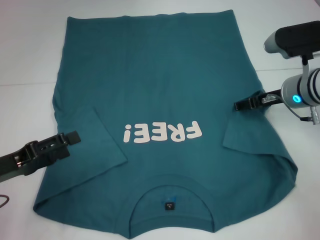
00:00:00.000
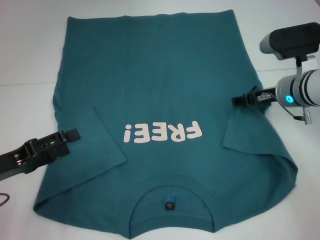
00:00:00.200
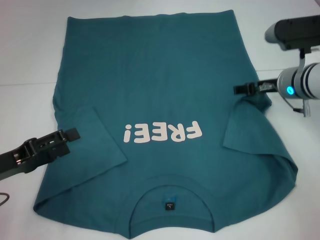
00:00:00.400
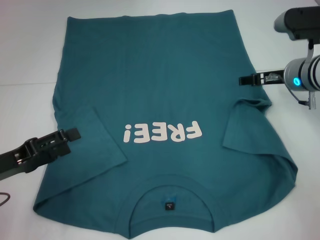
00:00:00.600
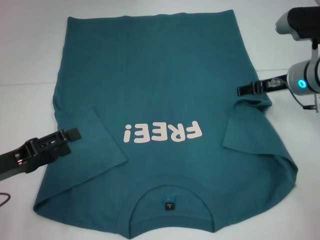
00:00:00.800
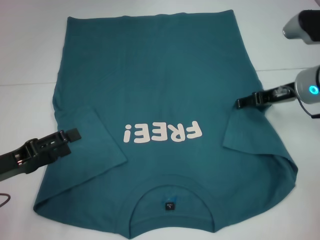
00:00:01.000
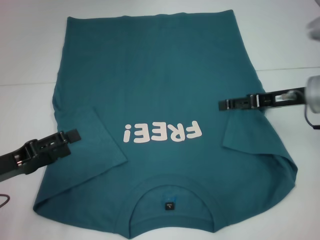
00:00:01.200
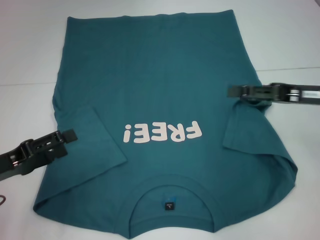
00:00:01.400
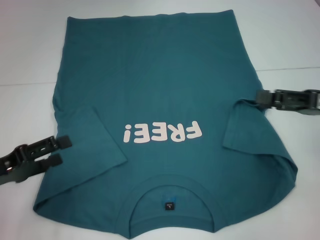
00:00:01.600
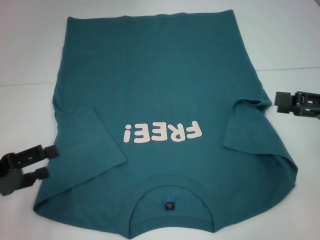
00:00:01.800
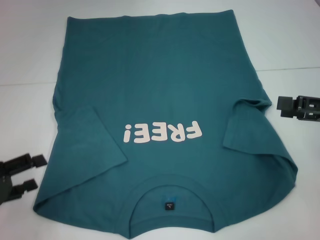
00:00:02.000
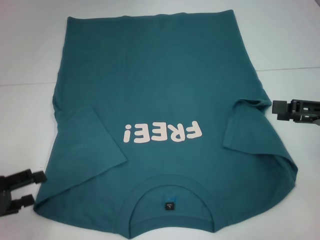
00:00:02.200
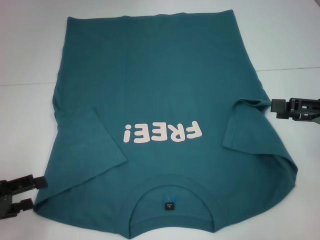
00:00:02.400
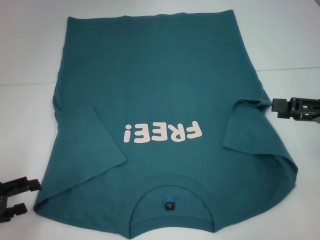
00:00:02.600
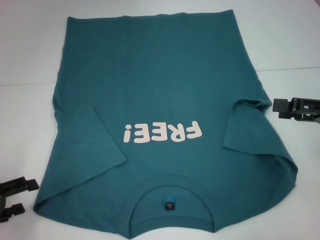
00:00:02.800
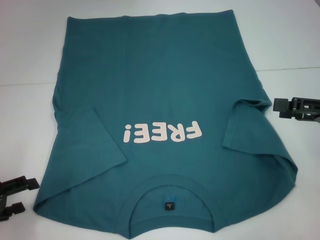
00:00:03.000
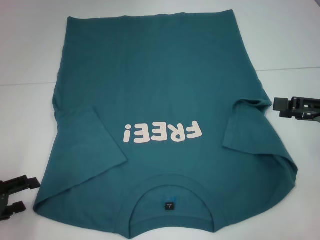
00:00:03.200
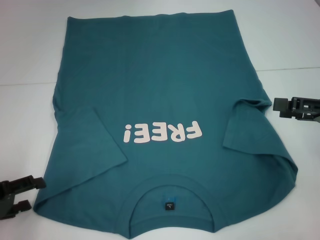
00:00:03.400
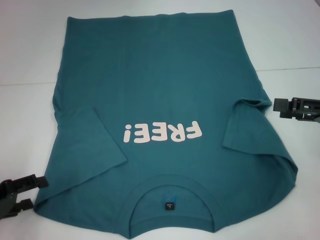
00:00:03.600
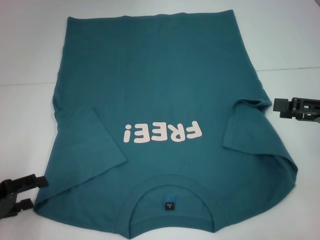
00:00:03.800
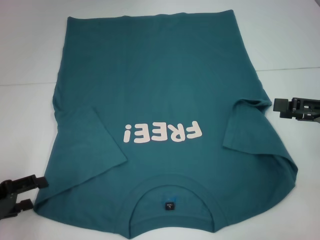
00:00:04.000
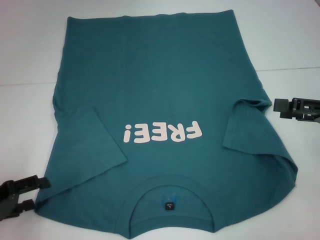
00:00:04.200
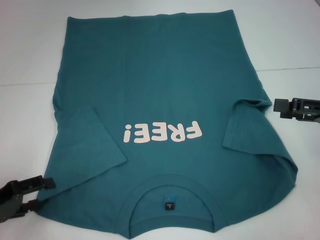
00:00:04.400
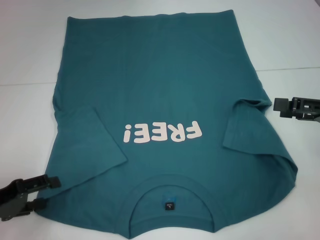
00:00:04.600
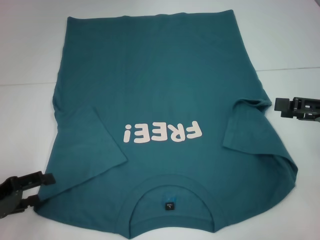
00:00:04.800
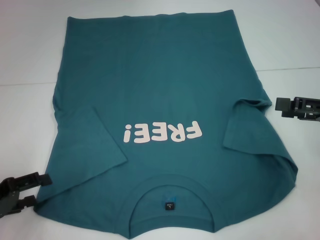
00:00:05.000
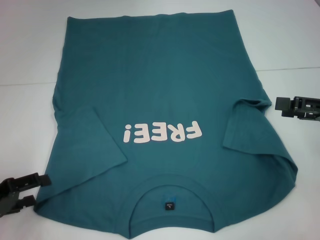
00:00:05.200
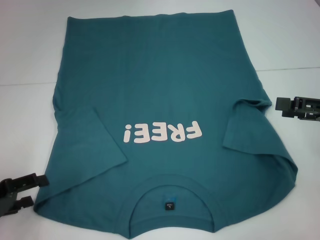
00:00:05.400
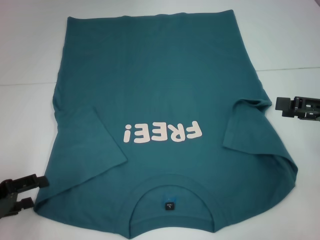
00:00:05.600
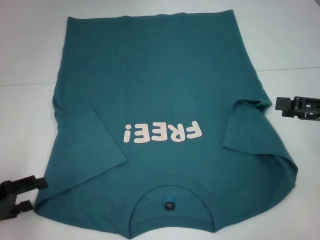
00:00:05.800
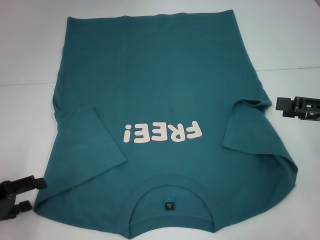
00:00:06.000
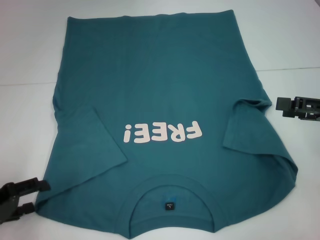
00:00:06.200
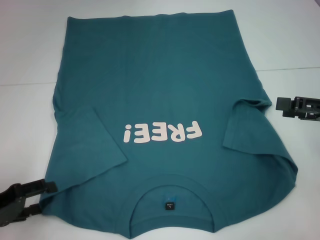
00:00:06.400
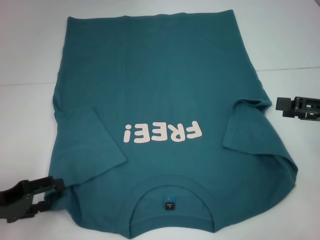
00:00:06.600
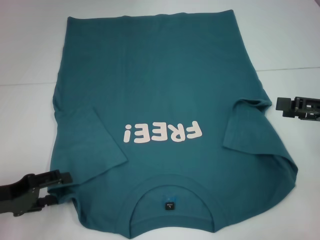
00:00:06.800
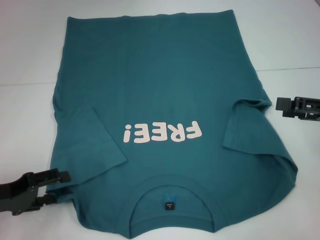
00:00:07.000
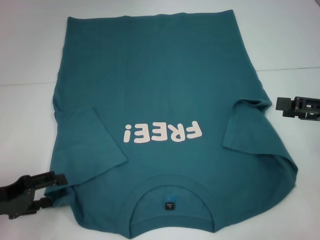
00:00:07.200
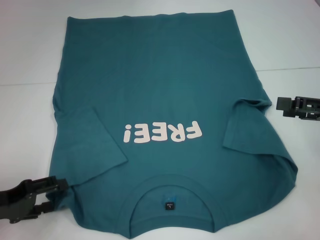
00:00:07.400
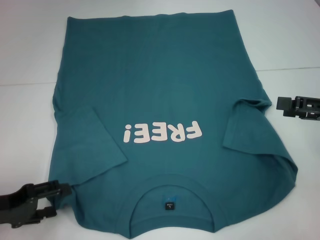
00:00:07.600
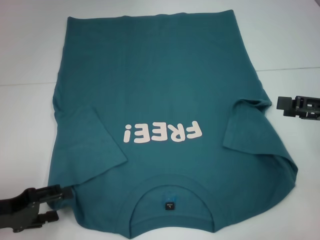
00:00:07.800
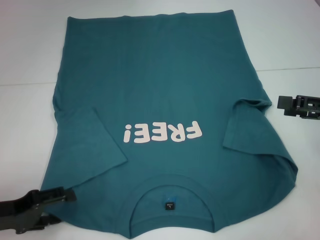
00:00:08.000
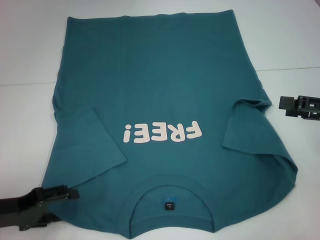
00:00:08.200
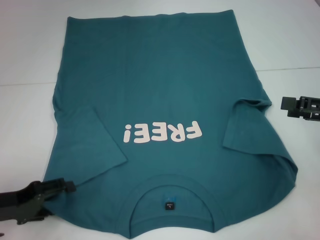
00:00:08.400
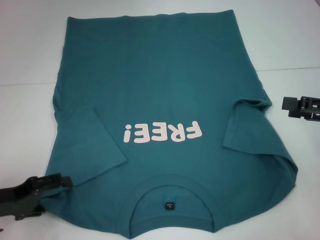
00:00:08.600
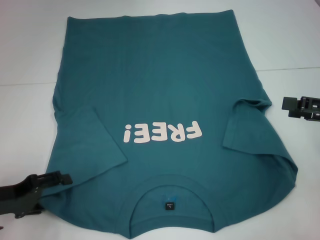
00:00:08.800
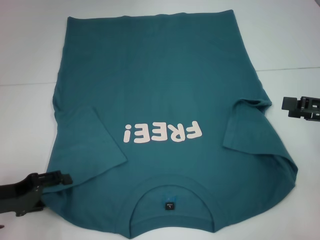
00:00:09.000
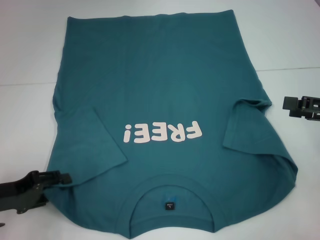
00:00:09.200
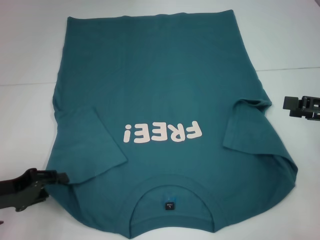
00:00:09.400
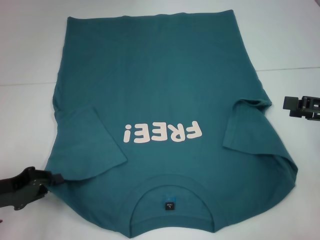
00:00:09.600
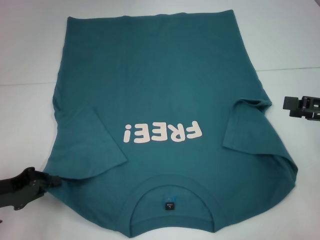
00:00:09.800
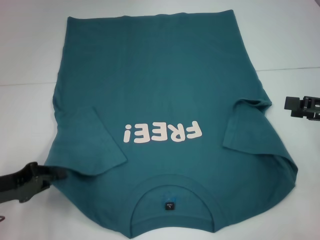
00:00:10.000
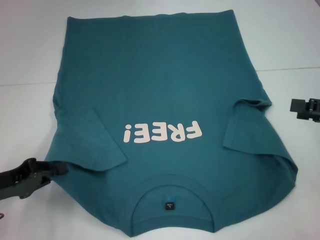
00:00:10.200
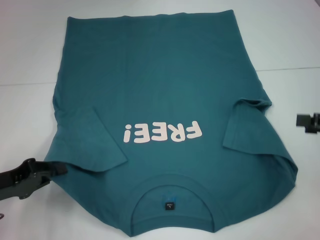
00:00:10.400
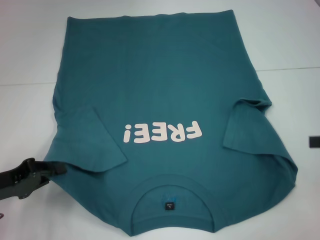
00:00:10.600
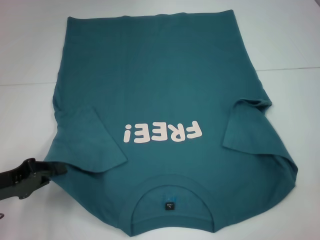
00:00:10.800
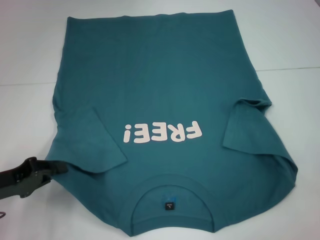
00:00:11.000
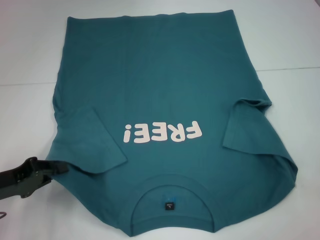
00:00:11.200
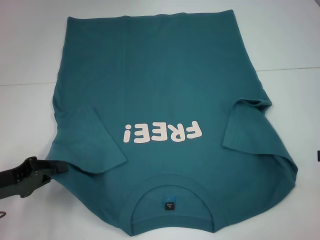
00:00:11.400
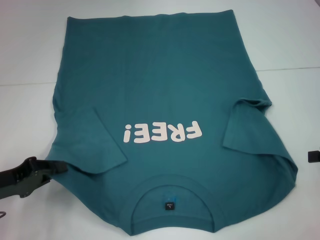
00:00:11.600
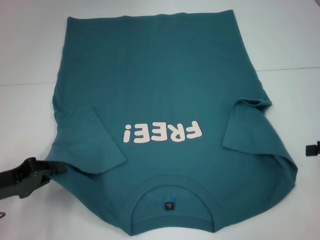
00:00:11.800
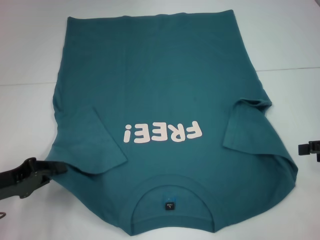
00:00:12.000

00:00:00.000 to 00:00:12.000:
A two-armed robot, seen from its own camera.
Step, 00:00:00.000 to 00:00:02.200: Fold the bottom right sleeve to the right.
Step, 00:00:02.400 to 00:00:09.800: Grab the bottom left corner with your left hand.
00:00:00.000 to 00:00:01.600: The right gripper goes roughly 15 cm backward, to the right and upward.
00:00:01.600 to 00:00:03.000: The left gripper shifts by about 5 cm.
00:00:03.000 to 00:00:09.000: The grippers stay close to where they were, moving slightly.
00:00:09.000 to 00:00:10.400: The left gripper closes.

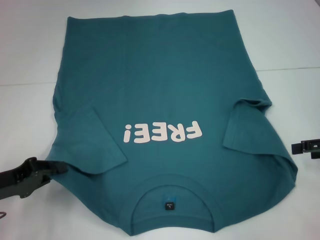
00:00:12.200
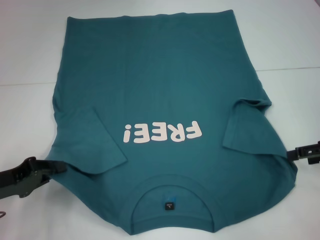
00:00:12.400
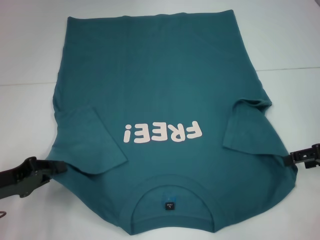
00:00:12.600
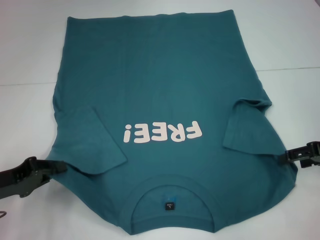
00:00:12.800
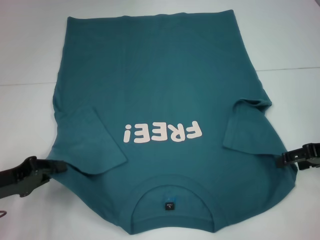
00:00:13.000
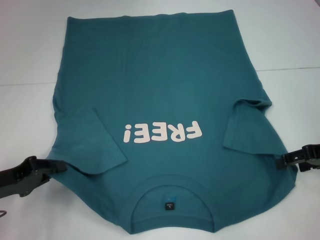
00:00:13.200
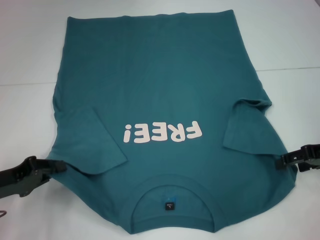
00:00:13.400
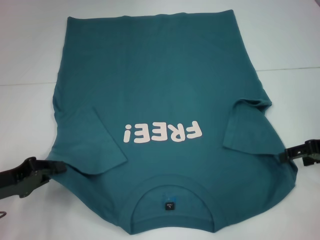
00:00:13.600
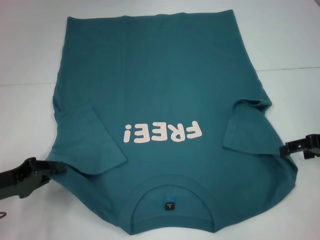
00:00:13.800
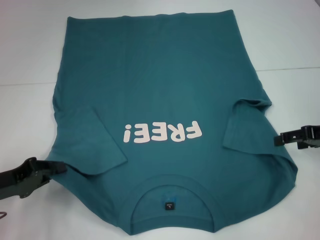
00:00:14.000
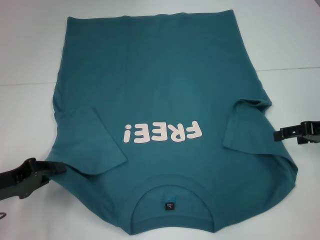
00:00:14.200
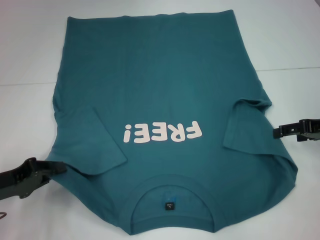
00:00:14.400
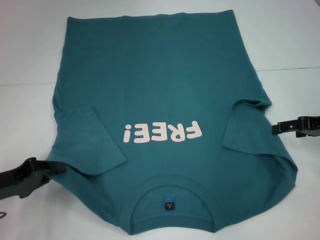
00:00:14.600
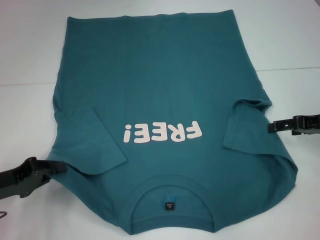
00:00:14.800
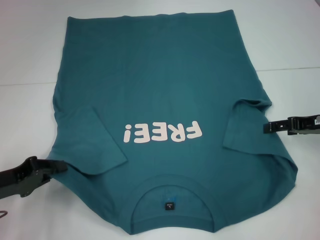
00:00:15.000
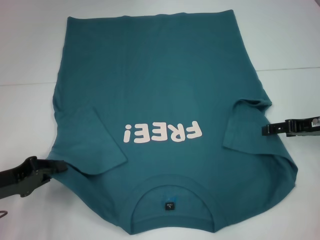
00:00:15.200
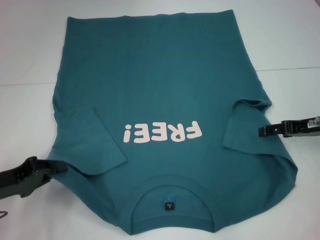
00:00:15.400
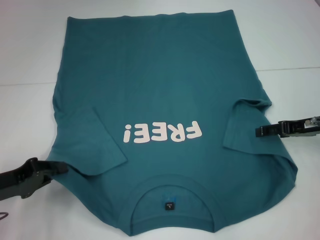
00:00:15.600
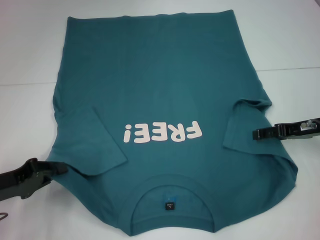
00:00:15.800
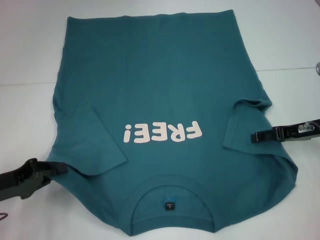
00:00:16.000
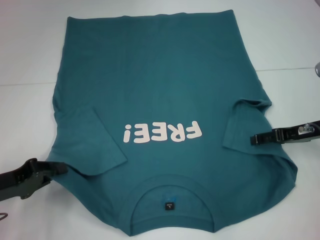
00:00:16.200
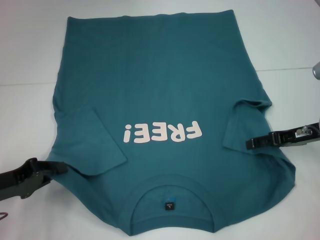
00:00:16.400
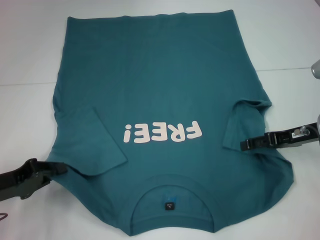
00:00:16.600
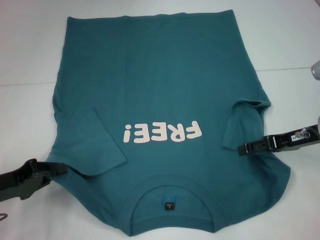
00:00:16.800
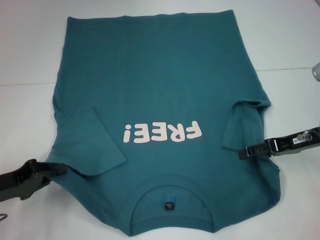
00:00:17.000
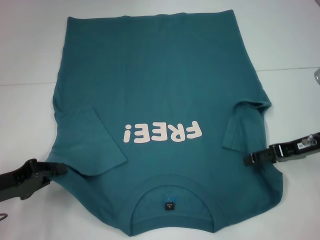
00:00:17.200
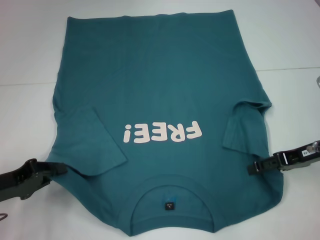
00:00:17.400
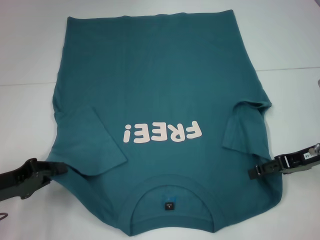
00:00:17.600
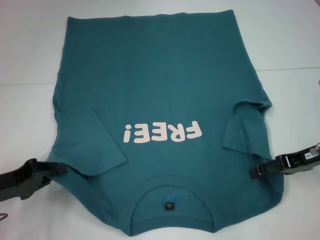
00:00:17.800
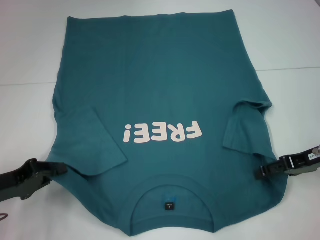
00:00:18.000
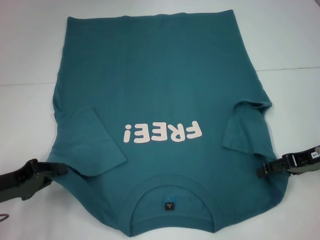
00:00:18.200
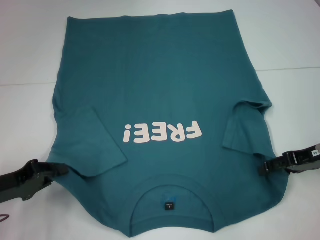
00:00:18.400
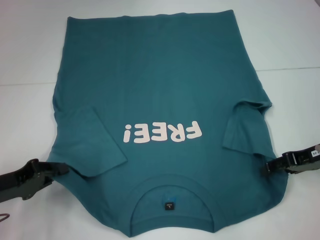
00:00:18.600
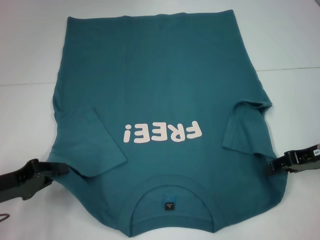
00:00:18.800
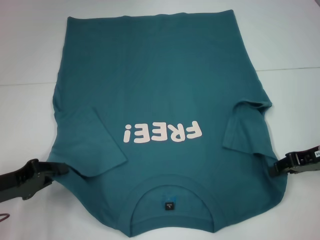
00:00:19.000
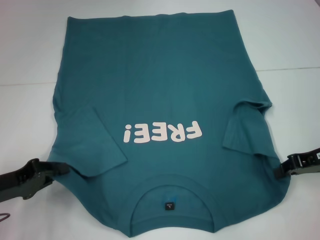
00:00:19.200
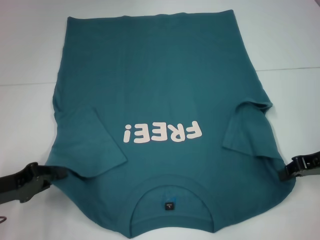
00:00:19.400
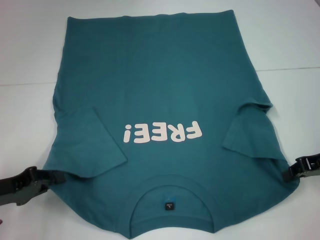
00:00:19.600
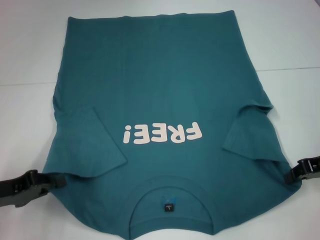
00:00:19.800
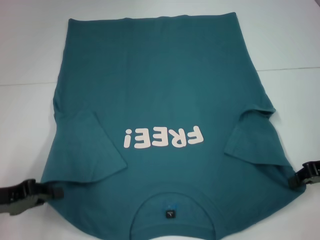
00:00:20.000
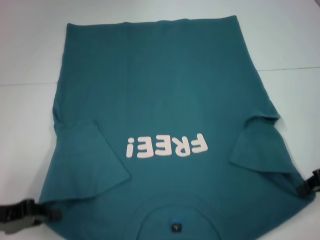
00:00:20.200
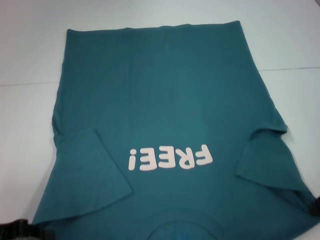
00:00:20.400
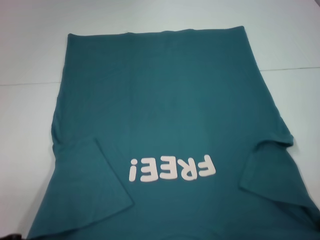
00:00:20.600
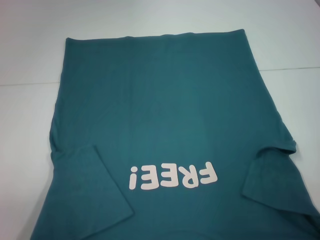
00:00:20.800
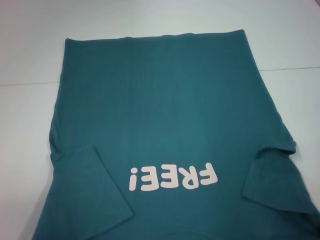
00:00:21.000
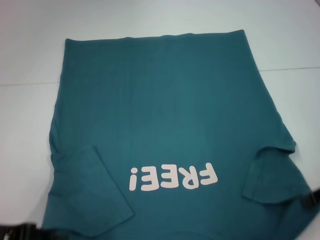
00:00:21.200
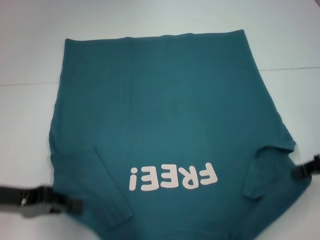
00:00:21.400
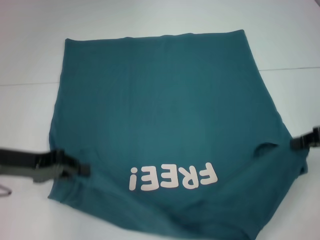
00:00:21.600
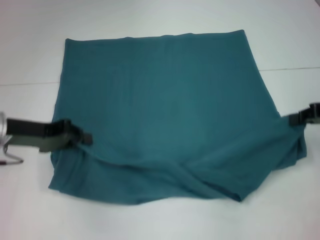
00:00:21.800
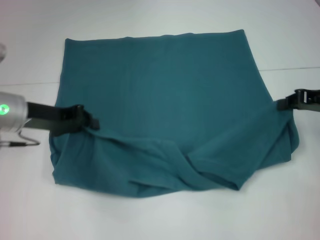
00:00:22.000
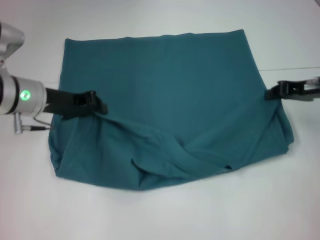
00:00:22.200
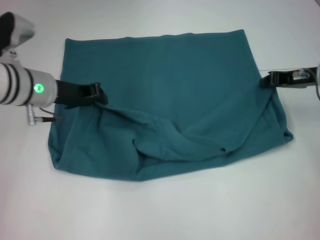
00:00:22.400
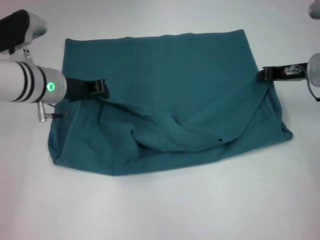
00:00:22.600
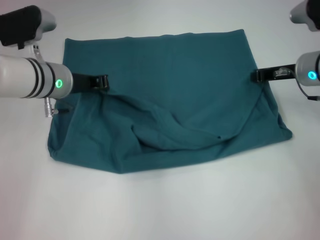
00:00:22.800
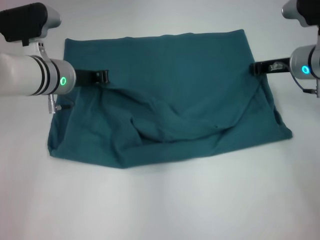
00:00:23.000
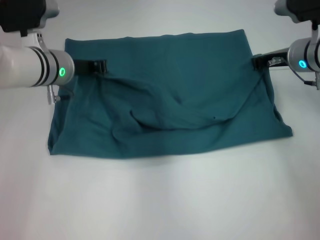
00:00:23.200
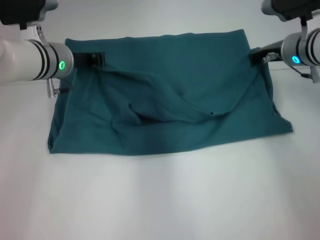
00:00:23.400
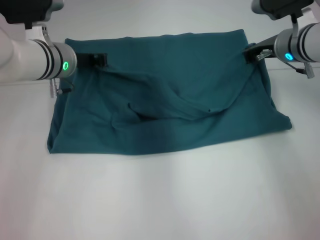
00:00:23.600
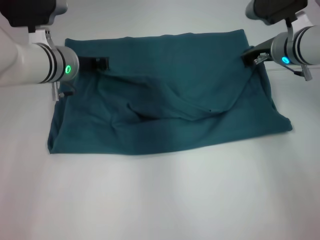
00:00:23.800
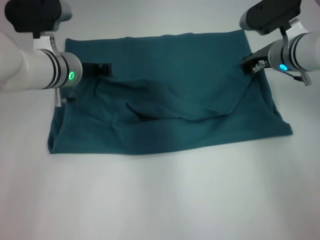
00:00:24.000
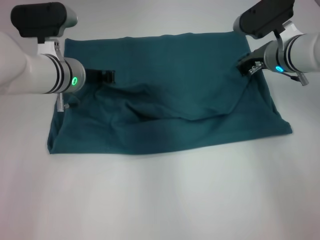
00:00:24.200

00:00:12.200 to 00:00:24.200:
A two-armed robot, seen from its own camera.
Step, 00:00:12.200 to 00:00:19.200: Grab the bottom right corner with your right hand.
00:00:13.800 to 00:00:18.200: The grippers stay close to where they were, moving slightly.
00:00:18.200 to 00:00:19.800: The right gripper closes its fingers.
00:00:19.800 to 00:00:21.200: The right gripper moves roughly 5 cm.
00:00:21.200 to 00:00:22.600: The left gripper is displaced forward and to the right by roughly 25 cm. The right gripper goes approximately 15 cm forward and to the left.
00:00:22.600 to 00:00:24.200: The right gripper travels to the left by about 5 cm.
